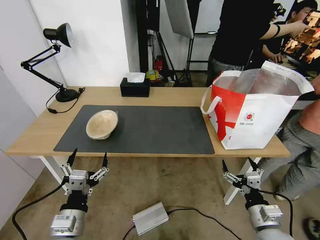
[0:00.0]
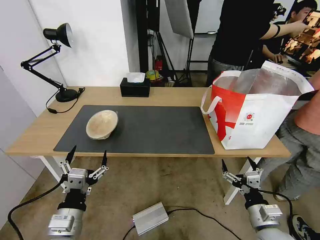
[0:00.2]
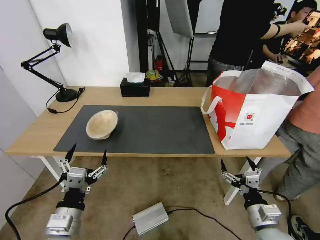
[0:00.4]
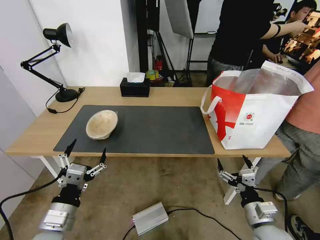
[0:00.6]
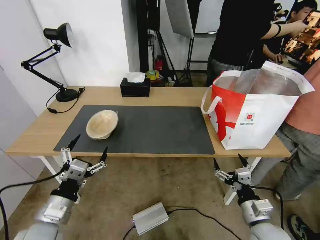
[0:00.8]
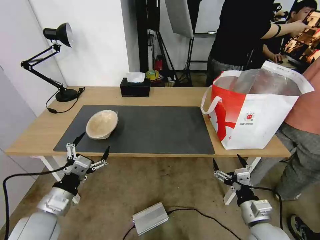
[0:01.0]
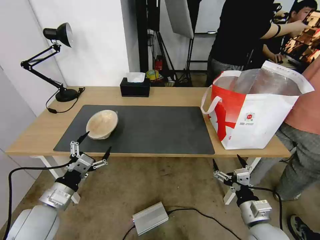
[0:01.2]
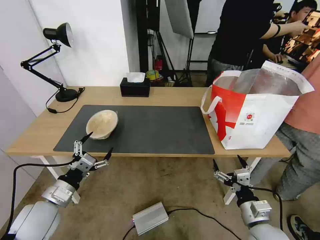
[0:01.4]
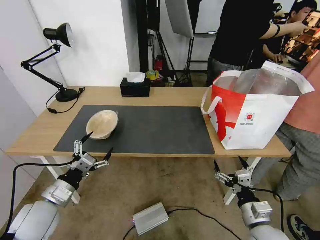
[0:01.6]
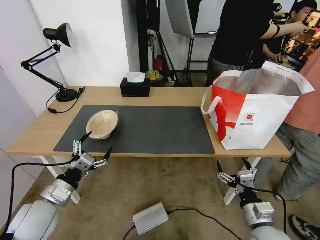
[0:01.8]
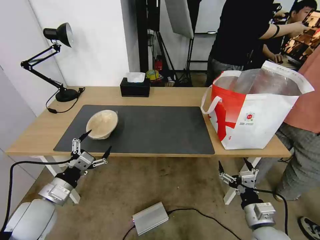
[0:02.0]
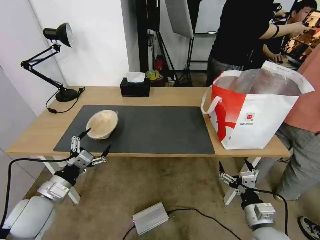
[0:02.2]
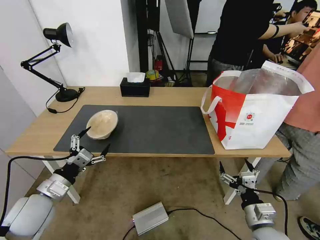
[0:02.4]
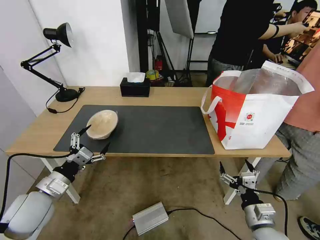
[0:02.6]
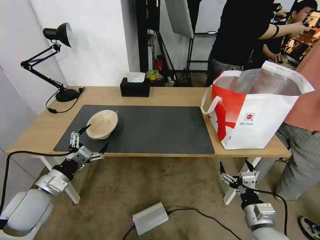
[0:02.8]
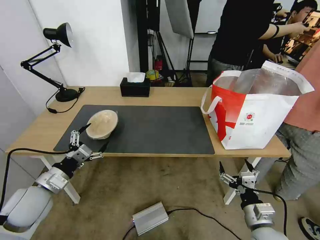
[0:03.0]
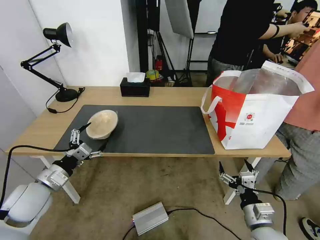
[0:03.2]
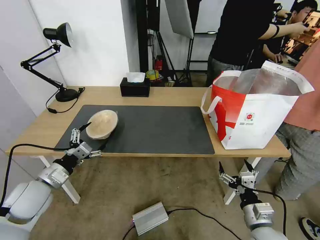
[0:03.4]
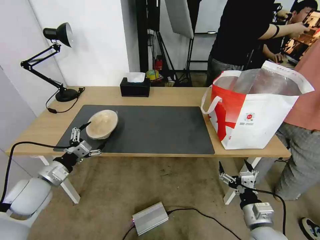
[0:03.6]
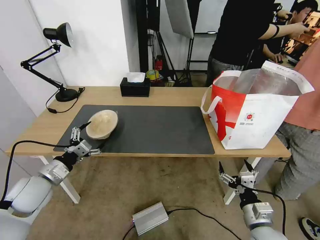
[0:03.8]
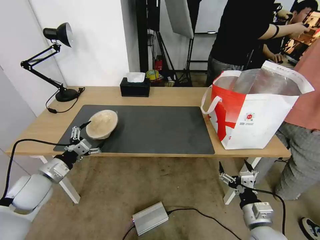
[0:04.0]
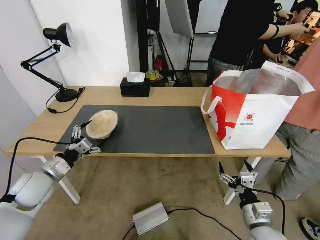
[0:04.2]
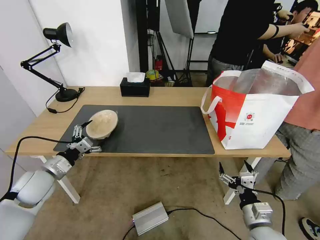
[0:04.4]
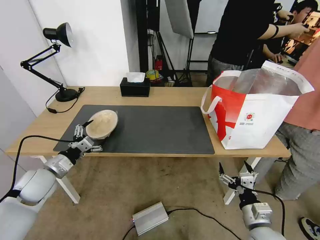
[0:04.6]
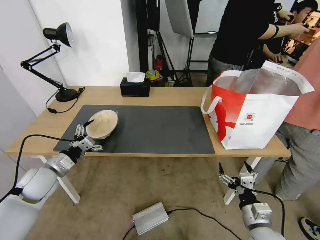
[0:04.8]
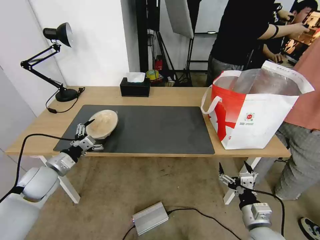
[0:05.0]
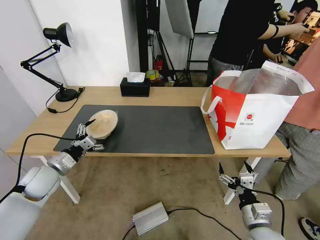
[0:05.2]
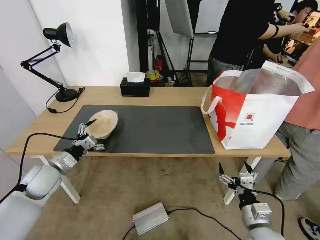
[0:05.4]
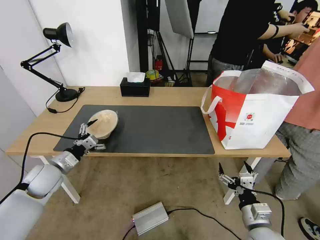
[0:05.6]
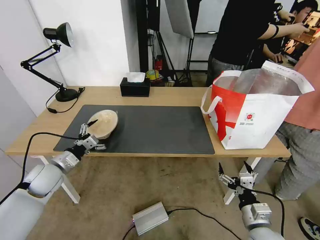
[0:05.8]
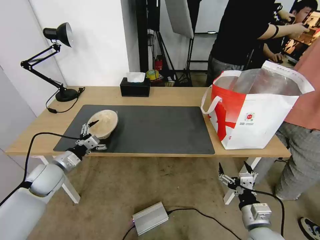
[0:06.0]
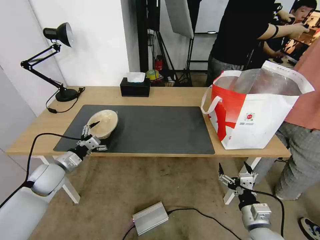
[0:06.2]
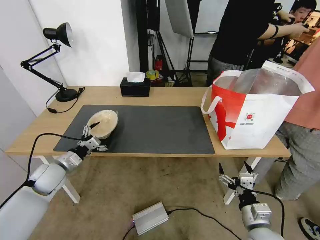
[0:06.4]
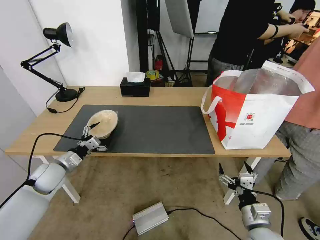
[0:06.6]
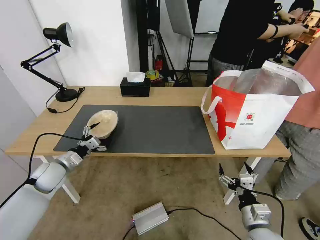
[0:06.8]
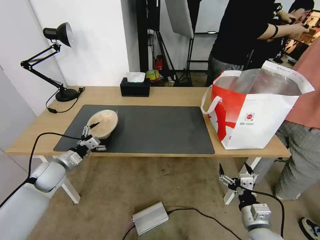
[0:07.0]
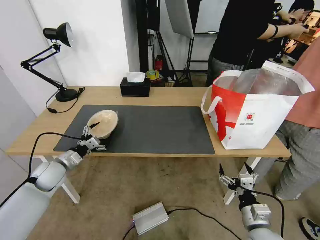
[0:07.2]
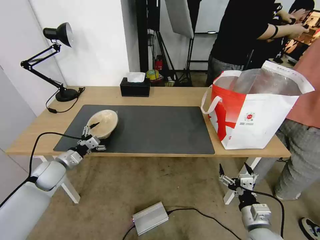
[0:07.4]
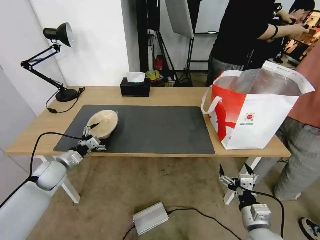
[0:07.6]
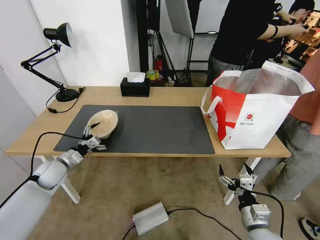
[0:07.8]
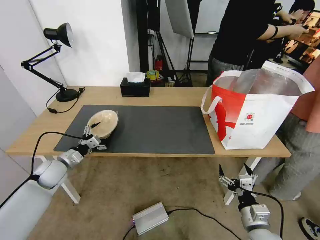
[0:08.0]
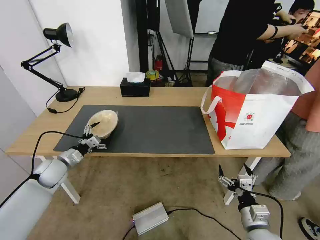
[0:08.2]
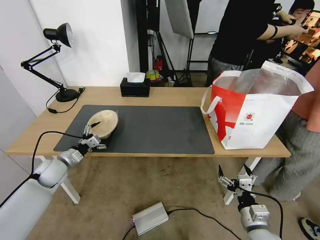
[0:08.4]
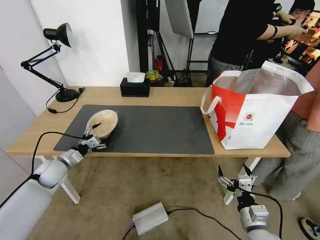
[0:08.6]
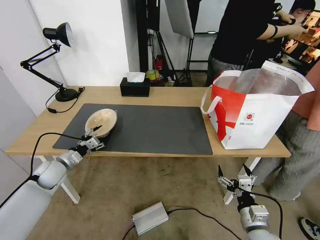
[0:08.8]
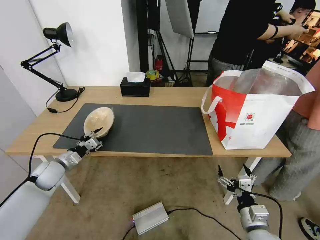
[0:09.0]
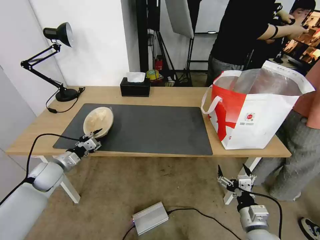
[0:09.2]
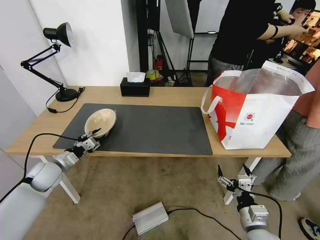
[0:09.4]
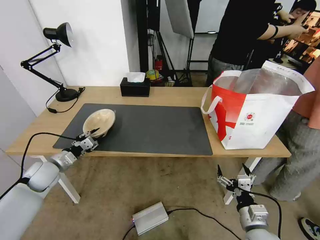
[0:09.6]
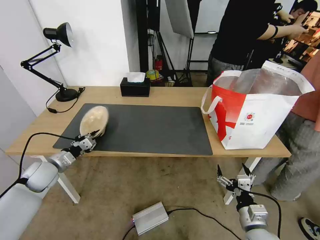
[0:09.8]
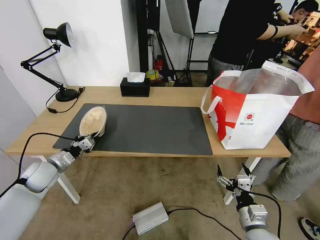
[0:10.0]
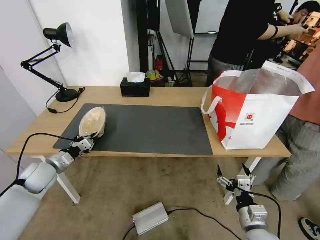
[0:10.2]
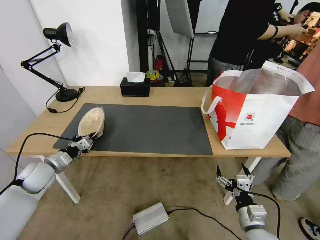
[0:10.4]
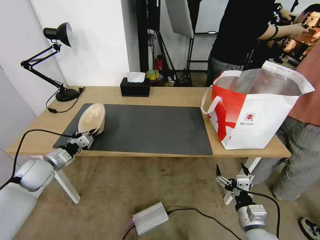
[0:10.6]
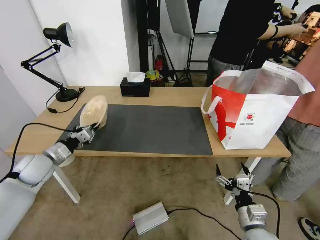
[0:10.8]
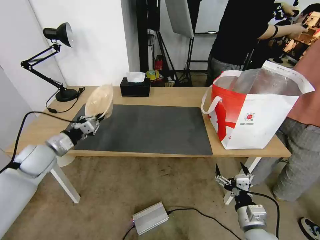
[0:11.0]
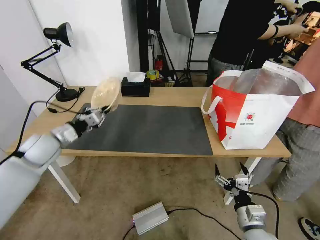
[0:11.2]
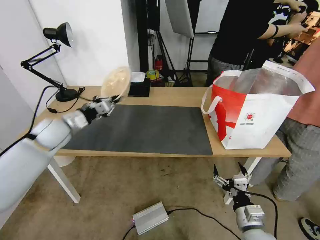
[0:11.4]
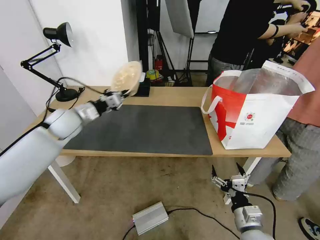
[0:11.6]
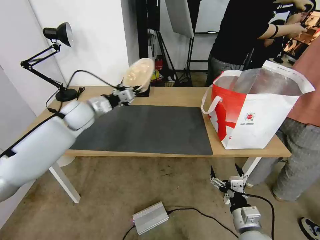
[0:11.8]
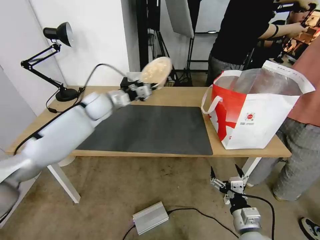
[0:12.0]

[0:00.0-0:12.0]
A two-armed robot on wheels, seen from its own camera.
Task of the whole recording: Pick up the trash from the table and place it into the takeout bag.
0:00.0 to 0:01.6: The left gripper is displaced to the left and forward by about 10 cm.
0:01.6 to 0:03.0: The grippers make only small movements.
0:03.0 to 0:04.4: The left gripper heads forward, covering roughly 5 cm.
0:04.4 to 0:06.0: The grippers make only small movements.
0:06.0 to 0:07.6: There are only small adjustments of the grippers.
0:07.6 to 0:09.0: The left gripper closes its fingers.
0:09.0 to 0:10.4: The left gripper closes its fingers.
0:10.4 to 0:12.0: The left gripper heads to the right, forward and upward, covering approximately 30 cm.

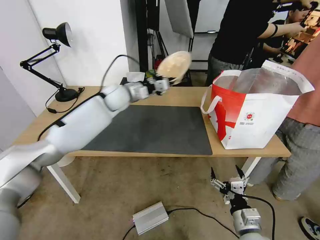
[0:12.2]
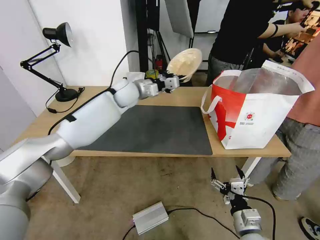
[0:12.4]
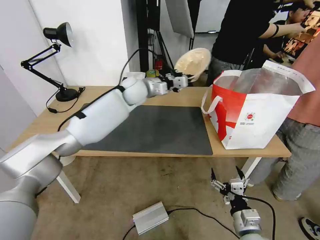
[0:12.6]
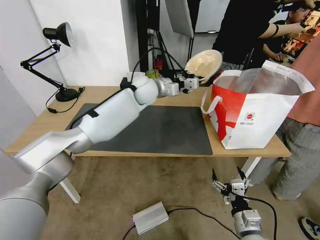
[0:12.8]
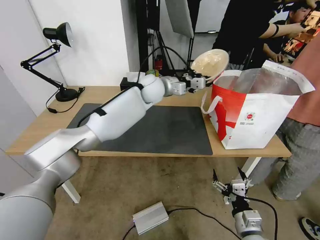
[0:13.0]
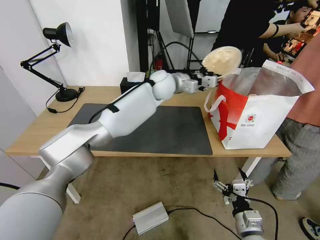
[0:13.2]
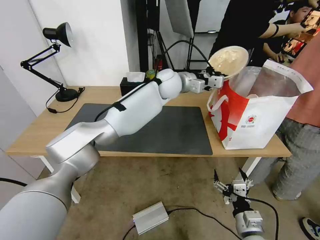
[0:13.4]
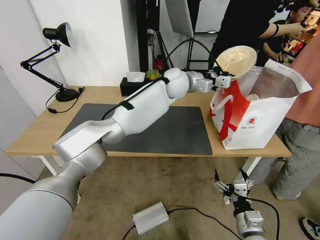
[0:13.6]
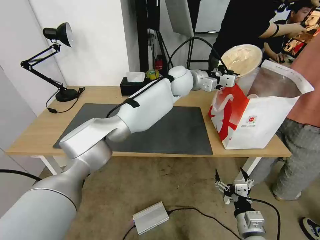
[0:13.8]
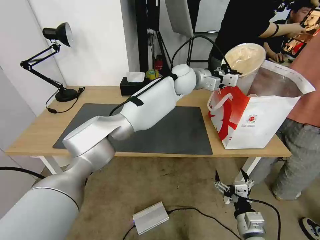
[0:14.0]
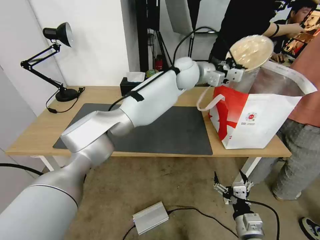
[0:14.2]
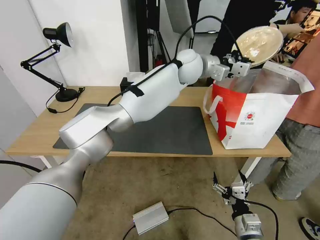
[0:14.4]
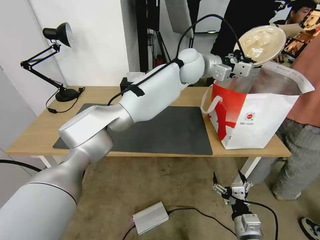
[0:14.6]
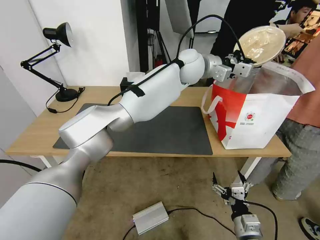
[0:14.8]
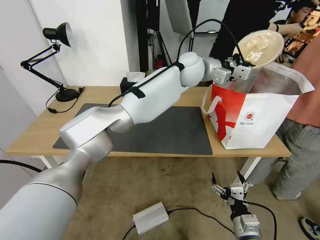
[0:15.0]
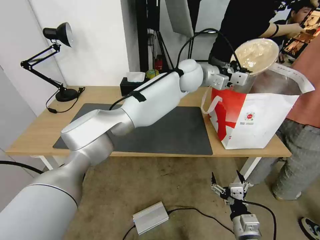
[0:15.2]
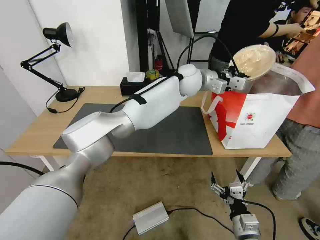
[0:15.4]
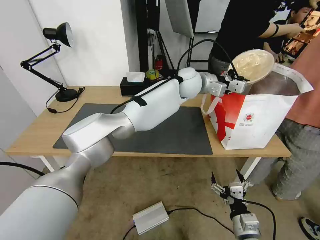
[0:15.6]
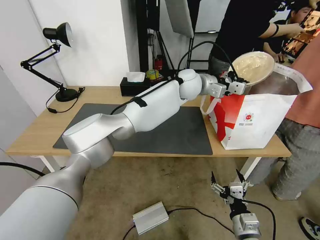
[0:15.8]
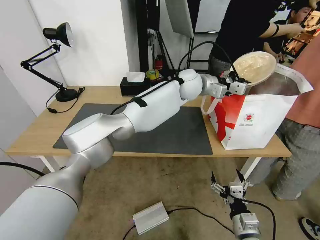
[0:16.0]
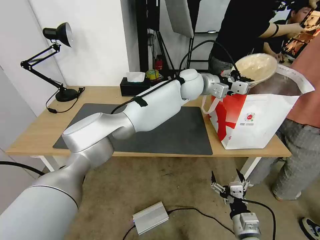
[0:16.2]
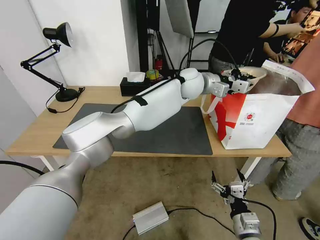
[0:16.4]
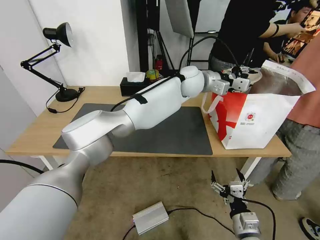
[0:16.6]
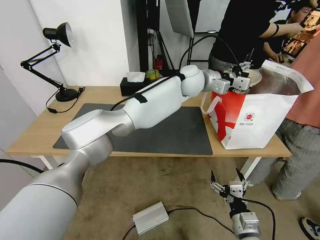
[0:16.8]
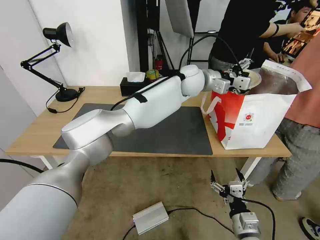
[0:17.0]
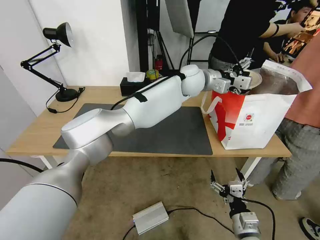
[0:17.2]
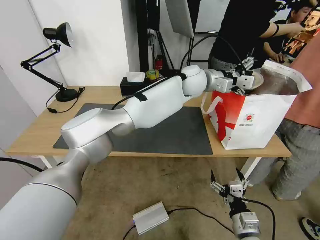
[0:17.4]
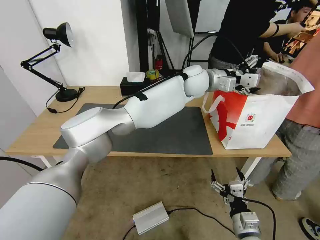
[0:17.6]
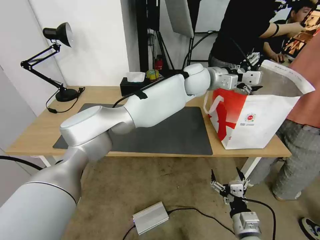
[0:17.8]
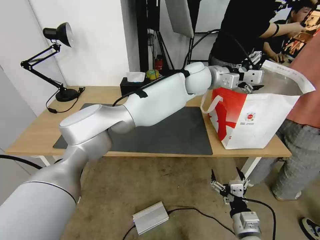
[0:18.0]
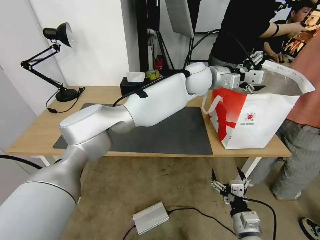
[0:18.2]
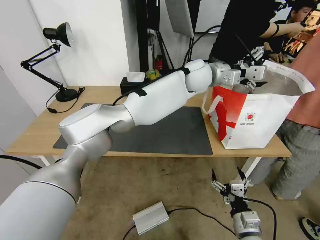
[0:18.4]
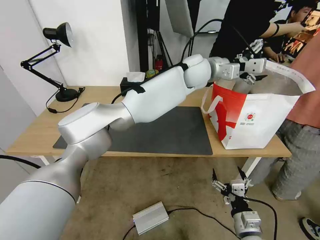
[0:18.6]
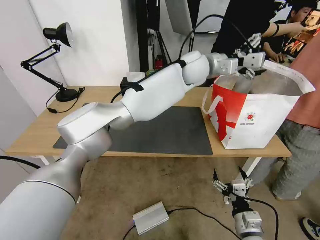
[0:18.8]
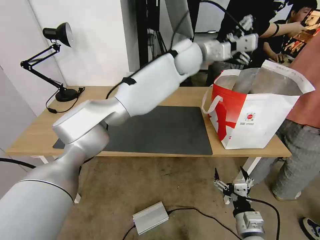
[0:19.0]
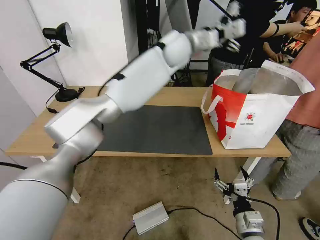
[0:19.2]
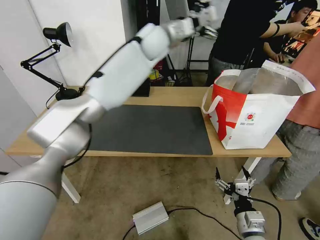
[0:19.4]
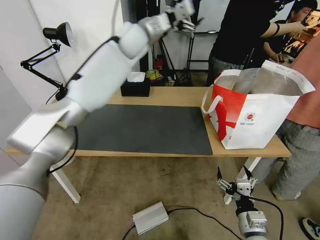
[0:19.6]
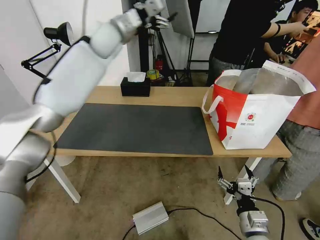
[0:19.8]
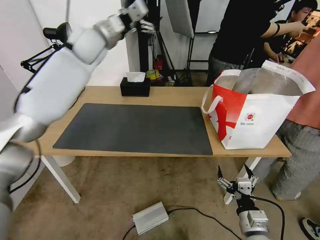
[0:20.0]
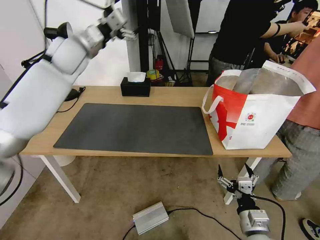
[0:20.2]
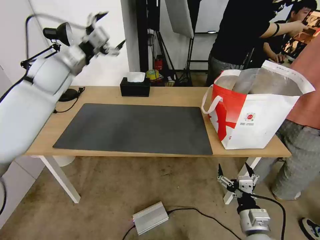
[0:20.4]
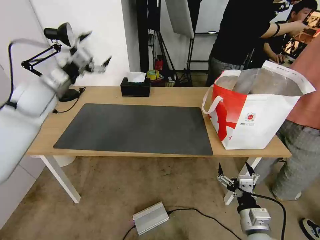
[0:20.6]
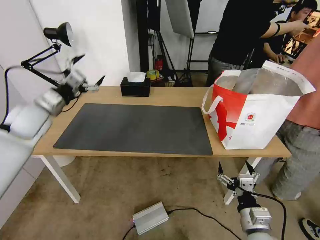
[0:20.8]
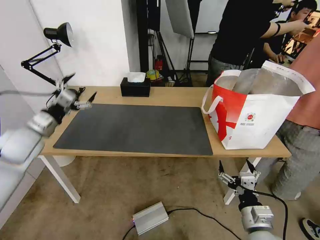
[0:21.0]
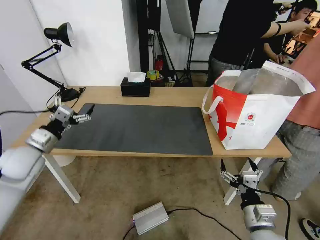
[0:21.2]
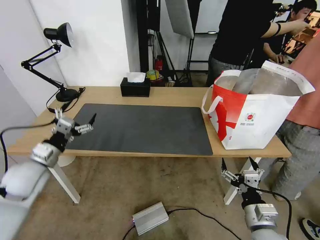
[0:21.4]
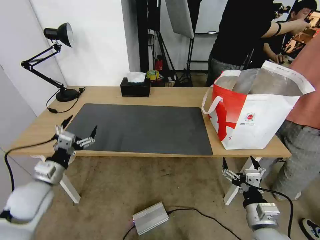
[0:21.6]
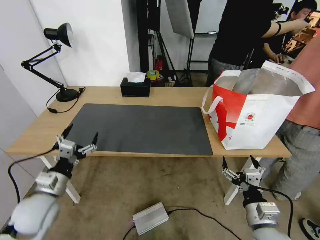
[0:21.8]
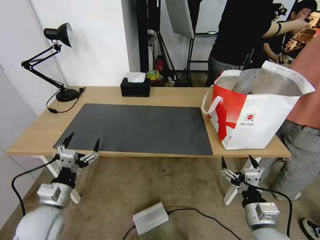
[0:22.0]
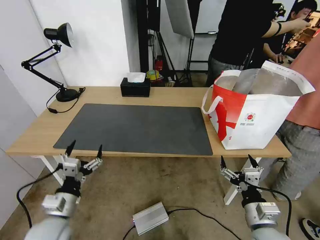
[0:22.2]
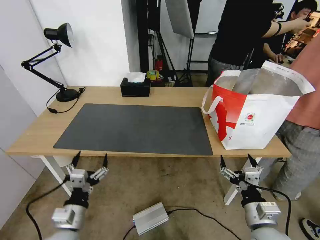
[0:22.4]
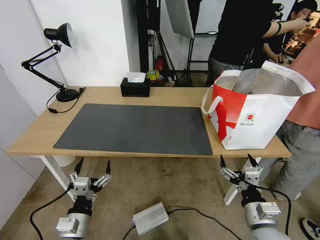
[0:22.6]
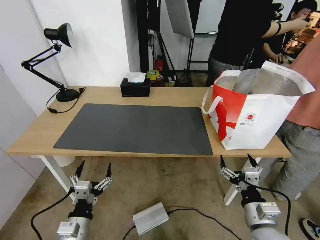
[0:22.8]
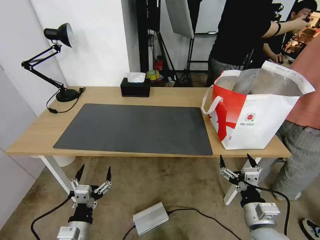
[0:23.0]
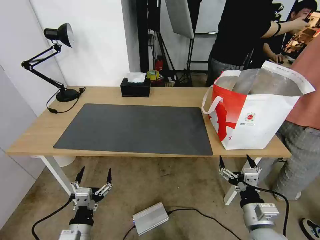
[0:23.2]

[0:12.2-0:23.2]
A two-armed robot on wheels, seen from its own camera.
Task of the whole recording: Pick up the trash from the table and place it into the takeout bag.
0:12.2 to 0:13.8: The left gripper travels to the right by about 25 cm.
0:15.4 to 0:17.0: The left gripper opens its fingers.
0:17.0 to 0:18.4: The grippers make only small movements.
0:18.4 to 0:20.0: The left gripper moves to the left, about 35 cm.
0:20.0 to 0:21.6: The left gripper travels backward, downward and to the left by roughly 50 cm.
0:21.6 to 0:23.2: The left gripper moves backward, to the right and downward, approximately 20 cm.
